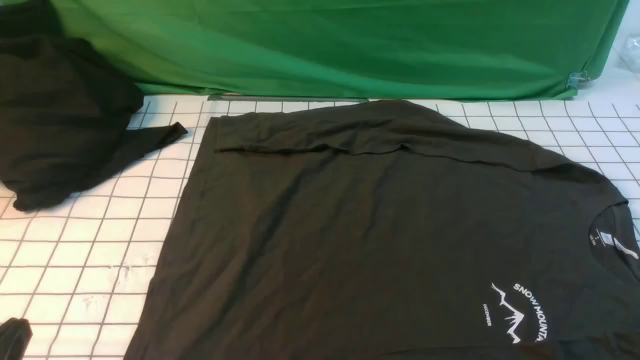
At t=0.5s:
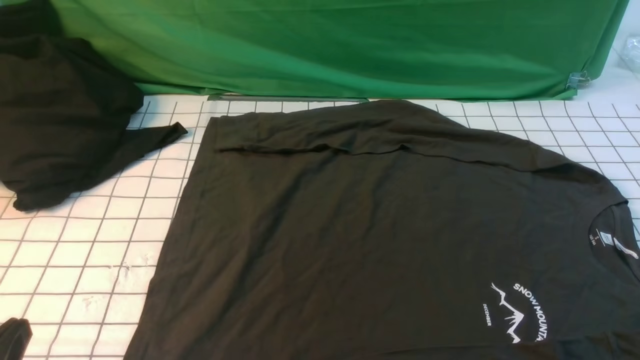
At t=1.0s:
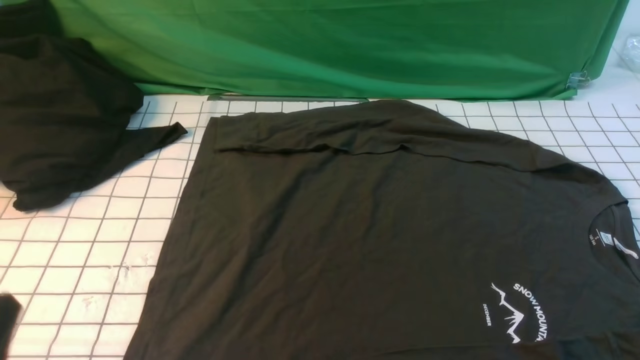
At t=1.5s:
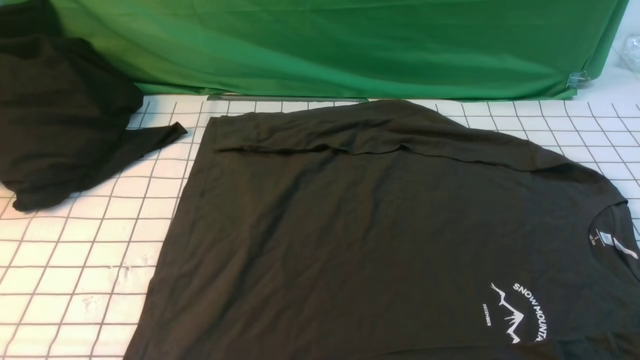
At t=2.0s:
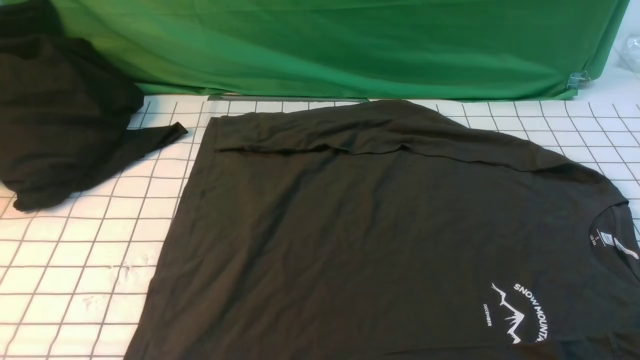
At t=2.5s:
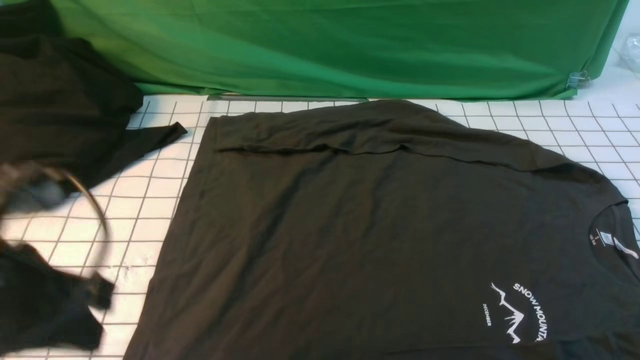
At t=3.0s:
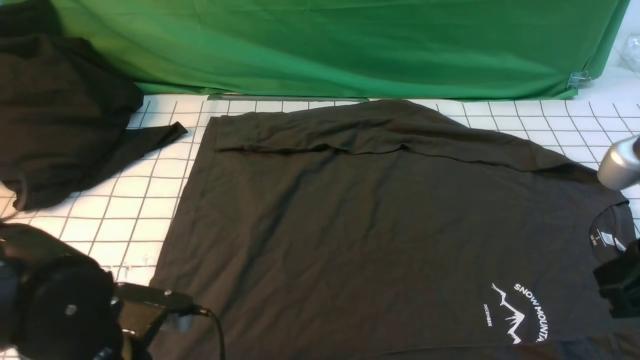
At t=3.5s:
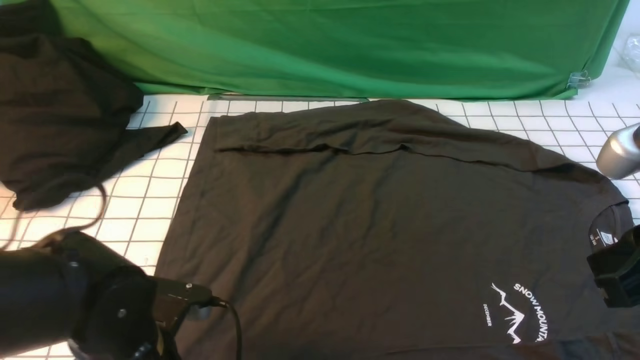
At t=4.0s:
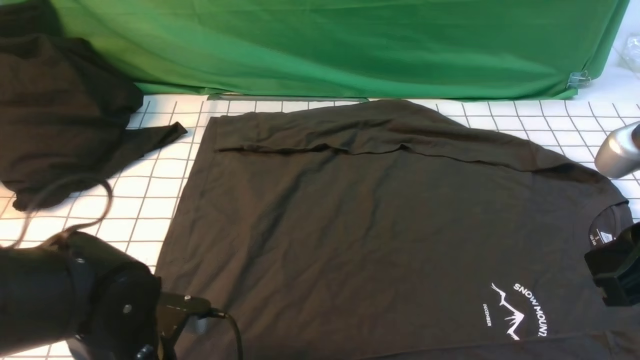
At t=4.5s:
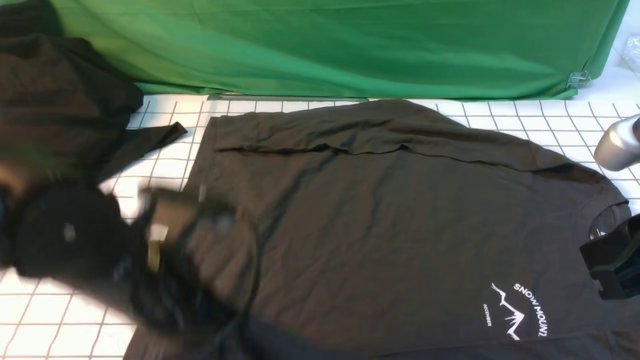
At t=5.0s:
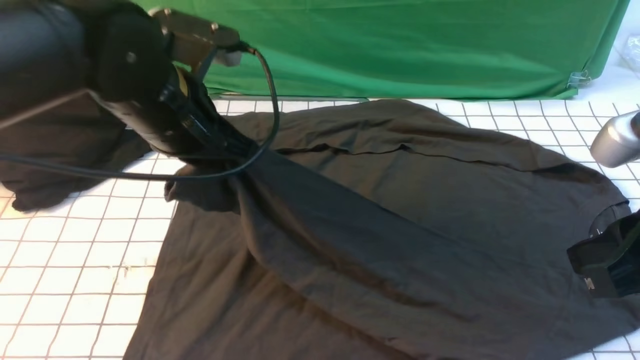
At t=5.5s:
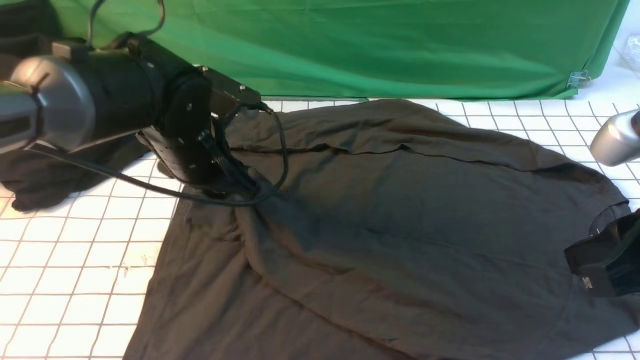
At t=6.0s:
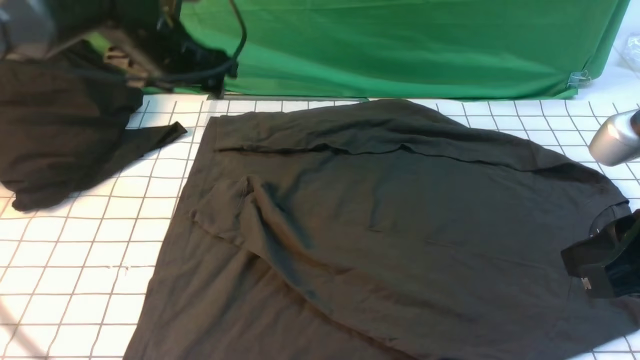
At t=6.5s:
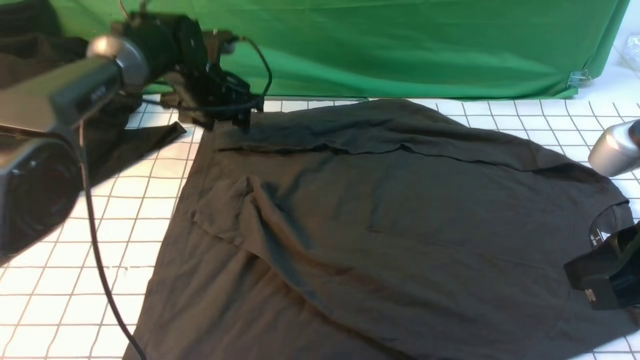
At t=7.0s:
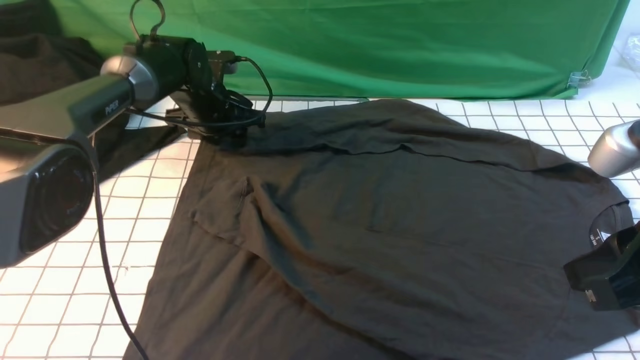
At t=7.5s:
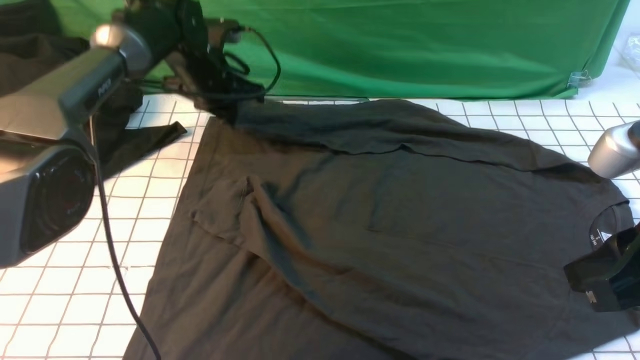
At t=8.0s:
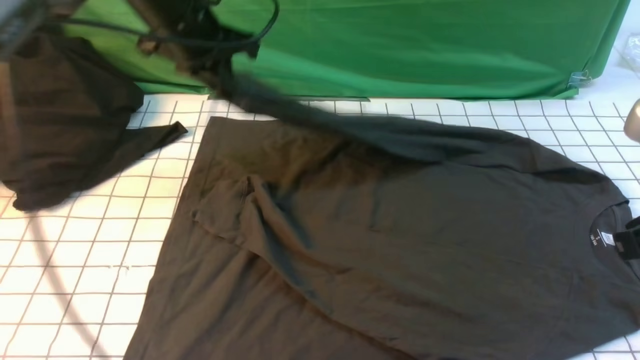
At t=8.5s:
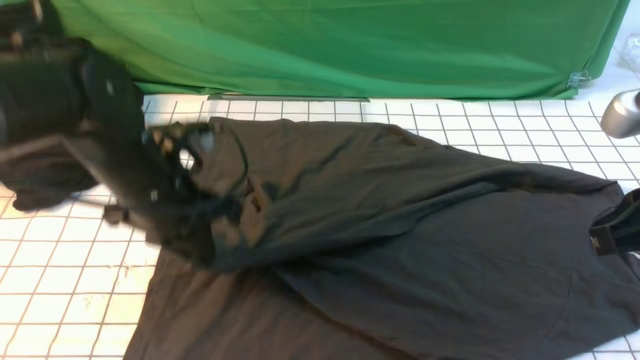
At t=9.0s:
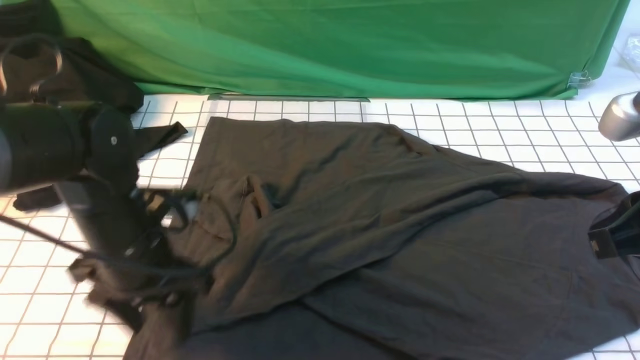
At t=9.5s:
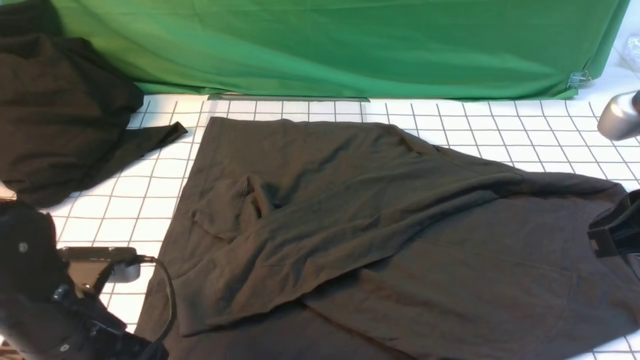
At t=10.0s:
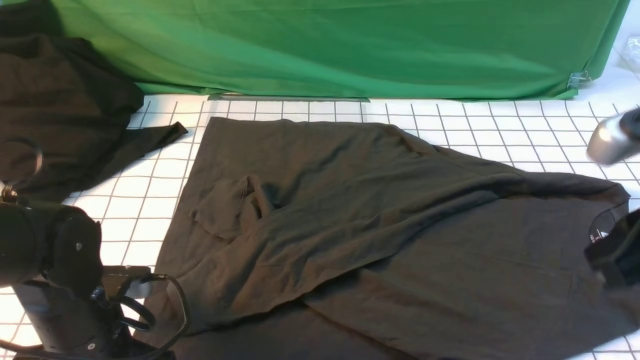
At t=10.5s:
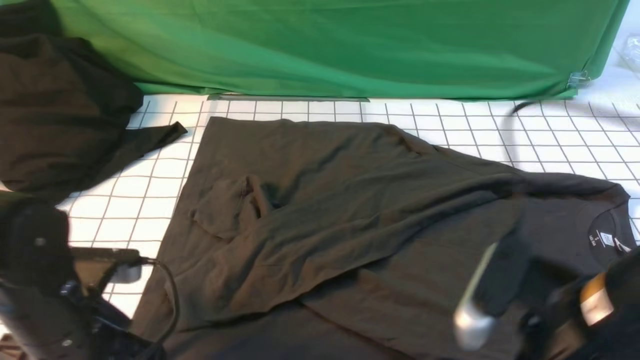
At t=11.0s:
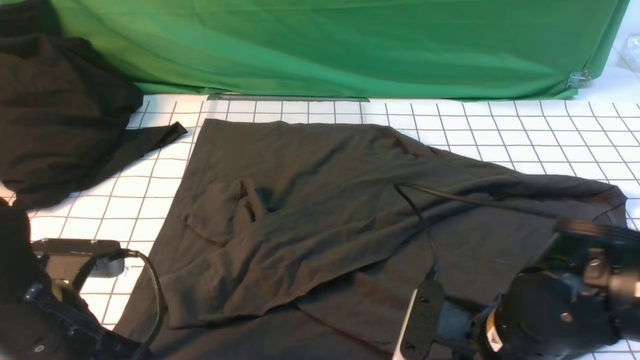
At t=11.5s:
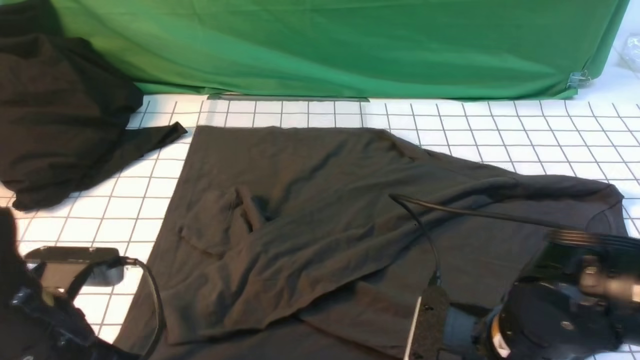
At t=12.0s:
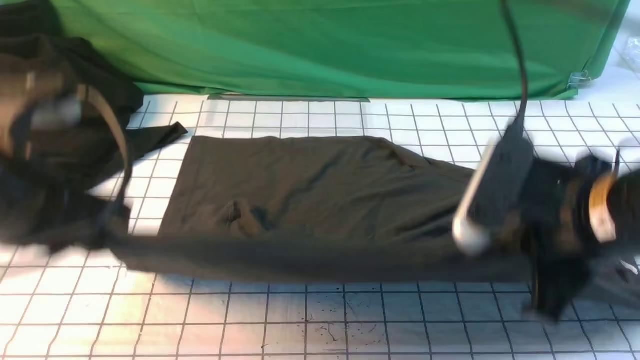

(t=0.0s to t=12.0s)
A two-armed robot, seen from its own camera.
Step, t=0.0s - t=4.0s: use the left arm to clamp the cuff closest to it.
Step, t=4.5s - t=5.5s: use the left arm to drag and place the cuff at the centered position on the left edge of the fabric.
Step, t=6.0s - t=7.0s: use the left arm to clamp the cuff farthest from it.
Step, t=7.5s - t=9.0s: use the left arm to drag and drop the cuff onto the cuff closest to the left arm.
Step, t=9.5s - t=11.5s: use both arms simultaneously to clamp the lower edge of the clothing fabric.
t=2.0s - t=4.0s: The left gripper moves downward, to the right and forward, some 25 cm, and opens and closes again; the right gripper heads forward, upward and to the left, covering approximately 15 cm, and closes.
t=4.0s - t=6.0s: The left gripper heads forward and upward, covering about 30 cm, and opens up.
t=6.0s - t=8.0s: The left gripper reaches about 10 cm downward, then returns, and closes.
t=8.0s - t=10.0s: The left gripper heads backward and downward, covering some 30 cm, and opens.
t=10.0s - t=12.0s: The left gripper heads upward, covering approximately 20 cm, and closes its fingers. Meanwhile the right gripper goes approximately 5 cm to the left, moves roughly 15 cm downward and comes back, and opens and closes again.

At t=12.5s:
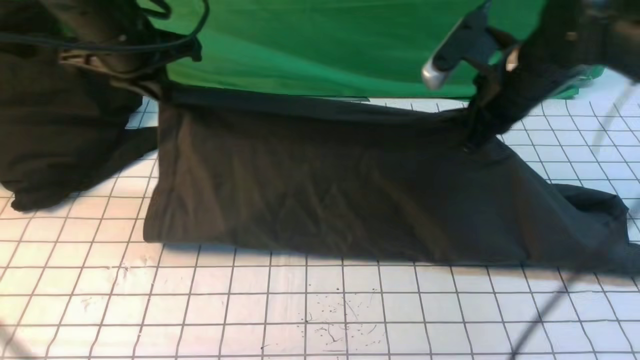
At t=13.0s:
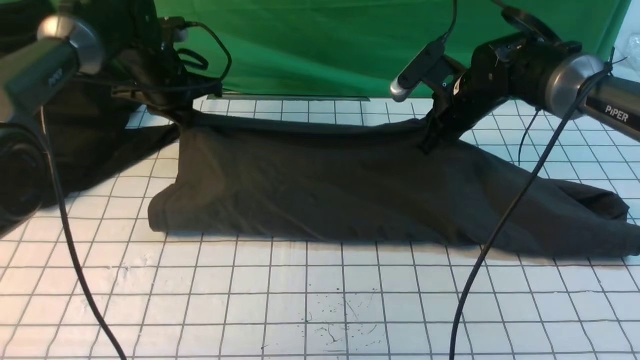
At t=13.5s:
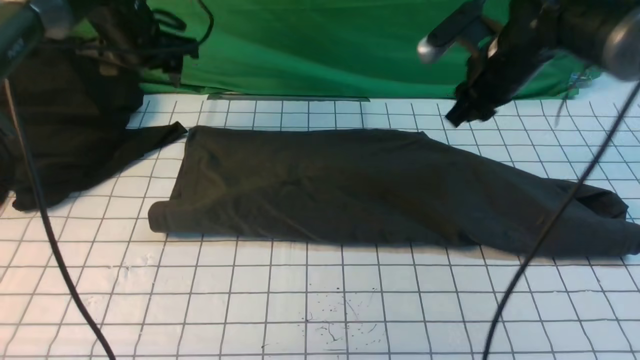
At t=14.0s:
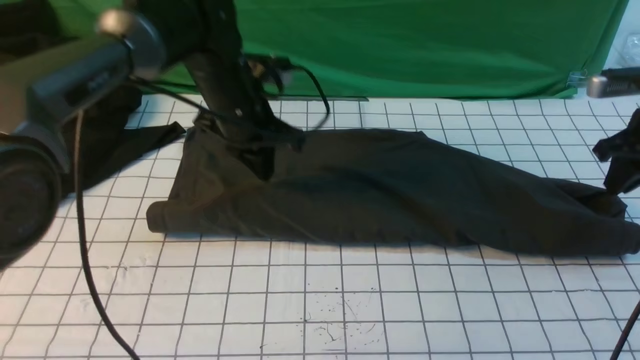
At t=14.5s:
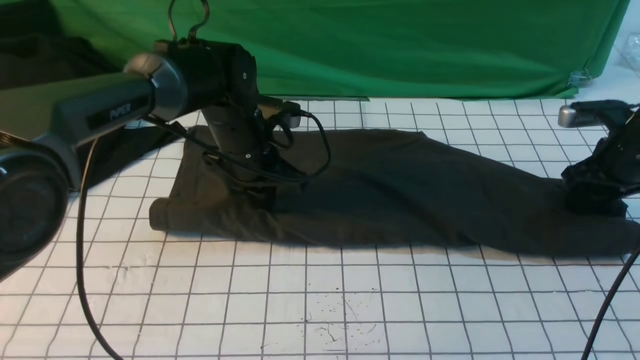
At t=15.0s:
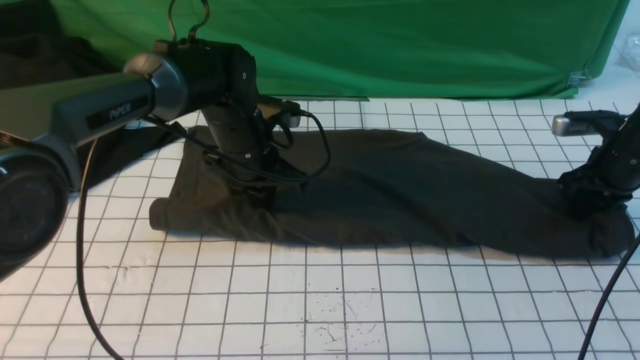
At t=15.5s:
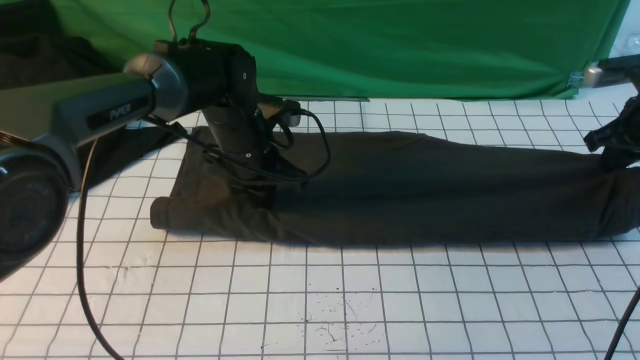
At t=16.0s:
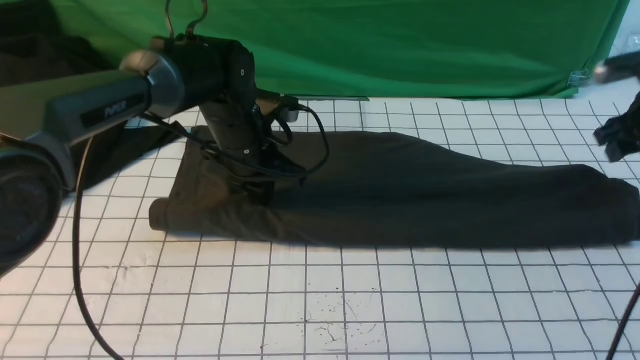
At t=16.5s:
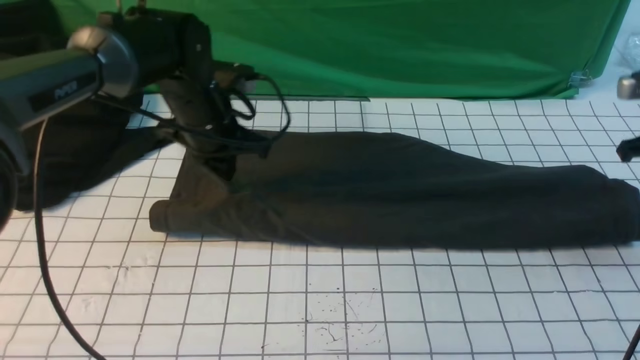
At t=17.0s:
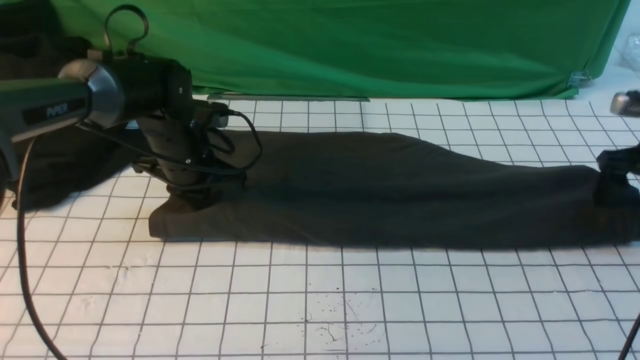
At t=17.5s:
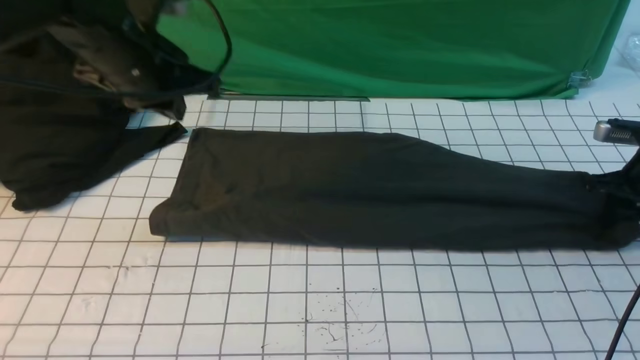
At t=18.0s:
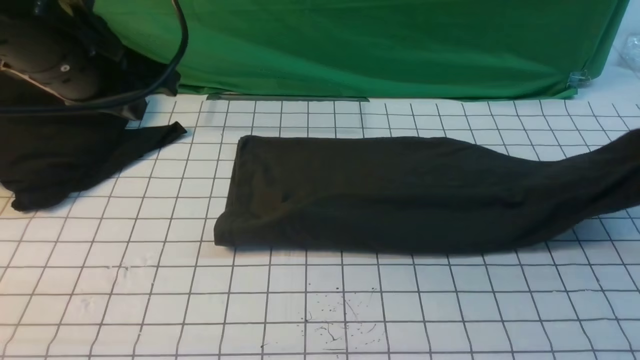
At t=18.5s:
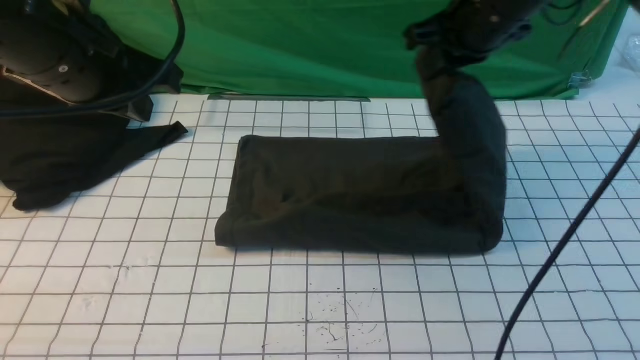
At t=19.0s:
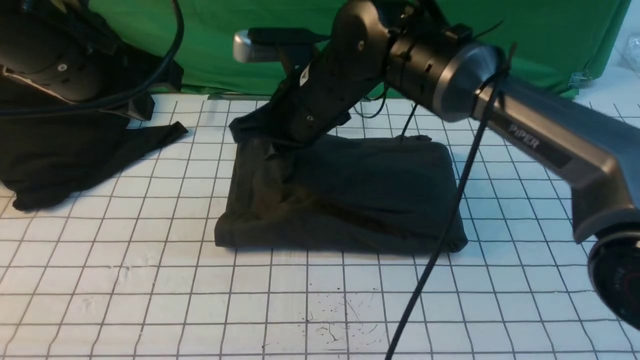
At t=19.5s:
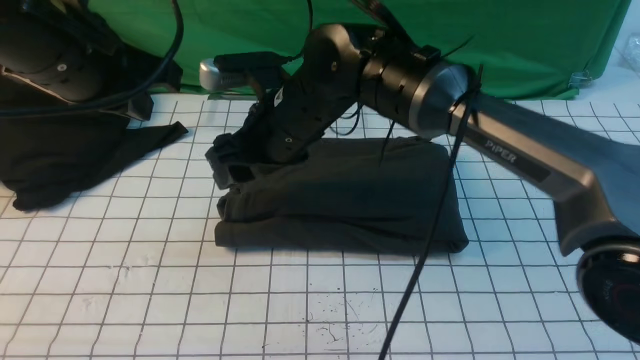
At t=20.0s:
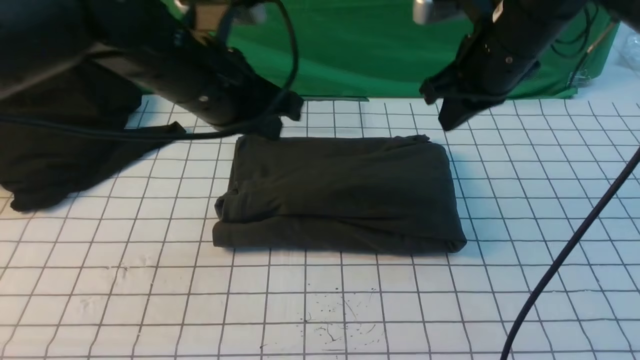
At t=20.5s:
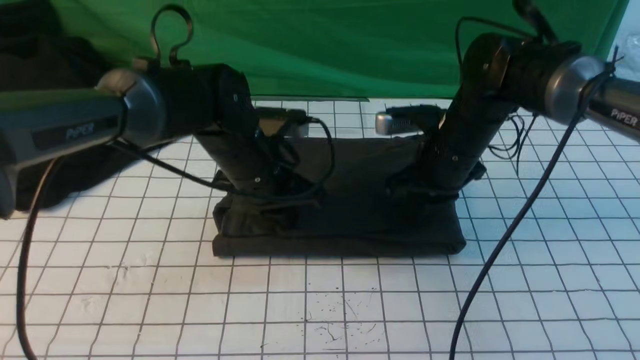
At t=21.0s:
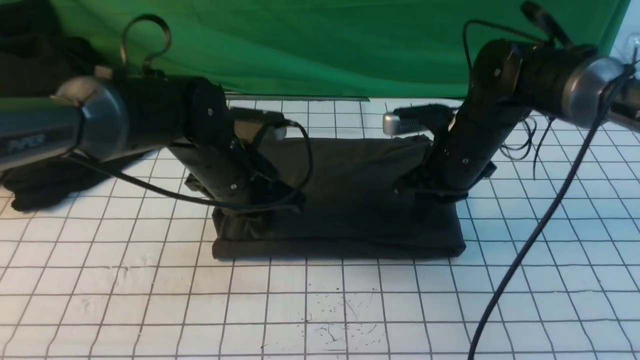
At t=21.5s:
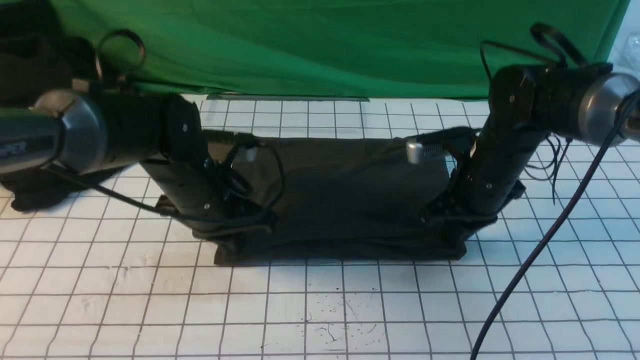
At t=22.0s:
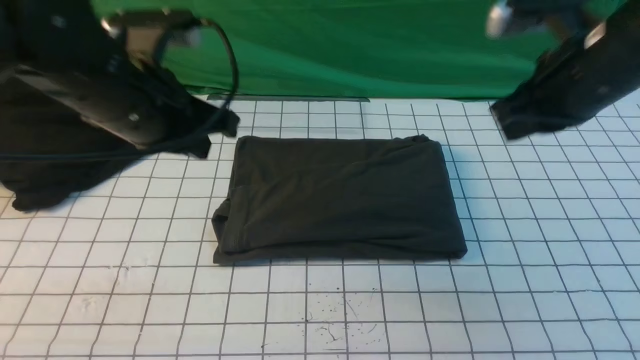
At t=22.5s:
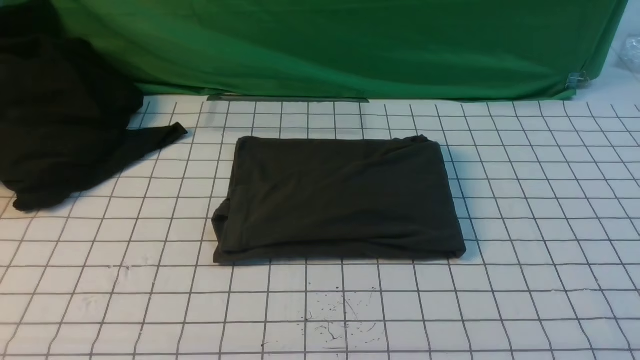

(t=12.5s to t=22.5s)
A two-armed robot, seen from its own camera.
Step, t=12.5s - t=13.5s: use both arms to drag the lower edge of the fabric forward and fold it over the upper edge.
Step, t=14.0s - t=17.5s: use the right arm to clamp the right edge of the fabric.
Step, t=18.0s - t=19.5s: use the right arm to drag the right edge of the fabric to the left and folds it over the left edge.
t=12.5s - t=14.5s: The left gripper goes up and down, roughly 15 cm each way, reversing 2 times, and opens, then closes once more, while the right gripper moves to the right and downward, about 20 cm, and opens up.
t=14.5s - t=16.5s: The left gripper moves roughly 5 cm, while the right gripper shifts roughly 5 cm upward, and closes.
t=16.5s - t=18.5s: The left gripper goes roughly 20 cm upward and backward, while the right gripper heads to the left, covering about 25 cm, and closes.
t=18.5s - t=20.5s: The left gripper shifts some 25 cm downward, to the right and forward. The right gripper goes approximately 15 cm downward, goes to the left and returns, approximately 15 cm each way, and opens, then closes again.
t=20.5s - t=22.5s: The right gripper shifts some 40 cm backward, upward and to the right, while the left gripper moves backward, upward and to the left, approximately 40 cm.
